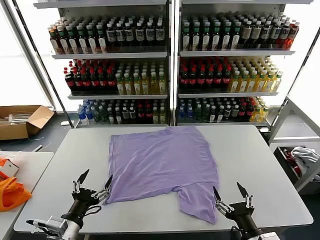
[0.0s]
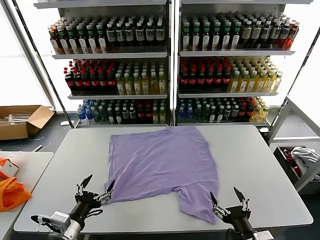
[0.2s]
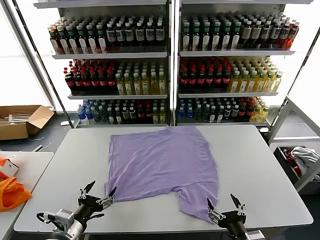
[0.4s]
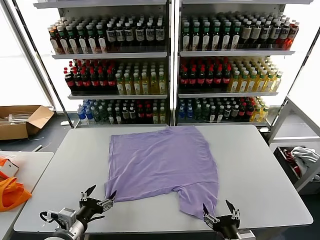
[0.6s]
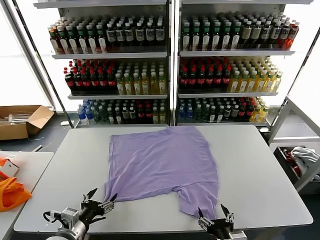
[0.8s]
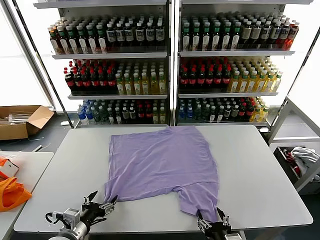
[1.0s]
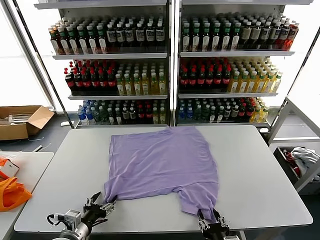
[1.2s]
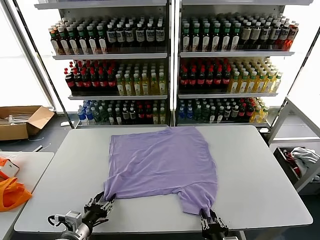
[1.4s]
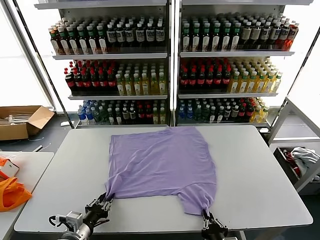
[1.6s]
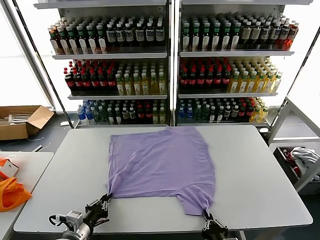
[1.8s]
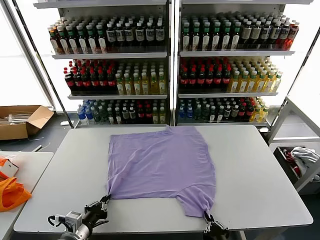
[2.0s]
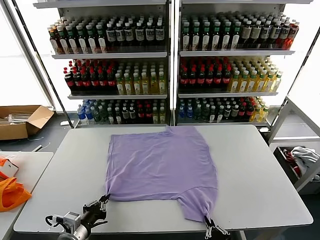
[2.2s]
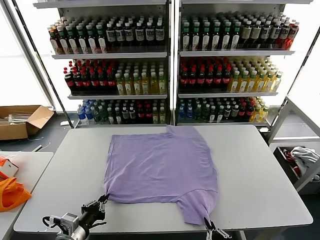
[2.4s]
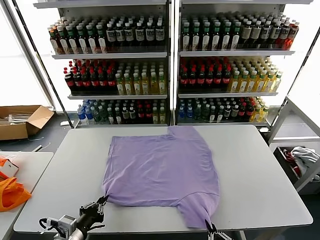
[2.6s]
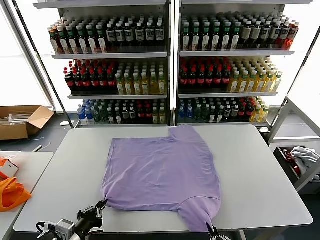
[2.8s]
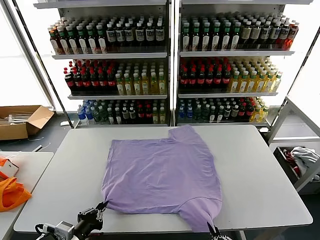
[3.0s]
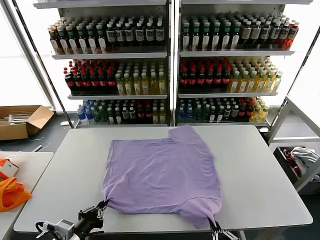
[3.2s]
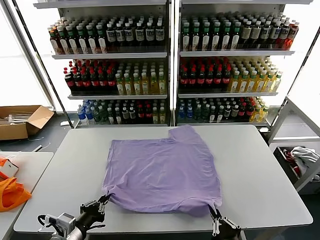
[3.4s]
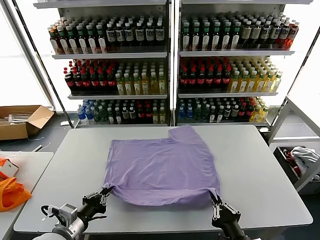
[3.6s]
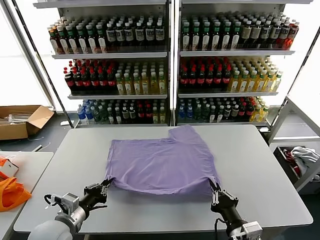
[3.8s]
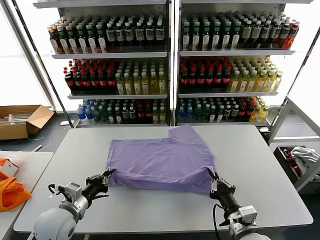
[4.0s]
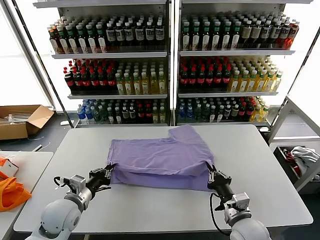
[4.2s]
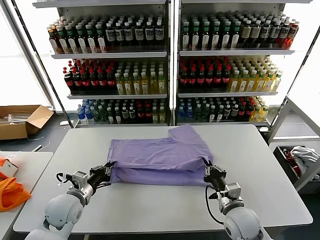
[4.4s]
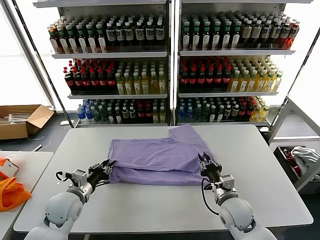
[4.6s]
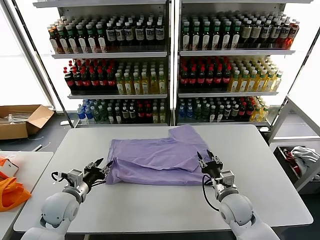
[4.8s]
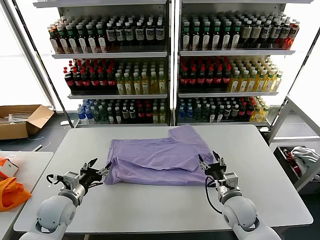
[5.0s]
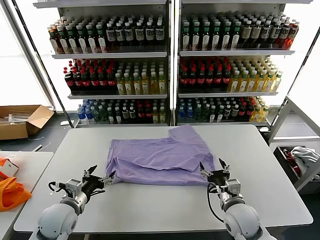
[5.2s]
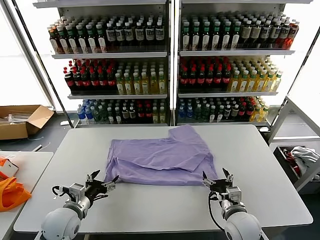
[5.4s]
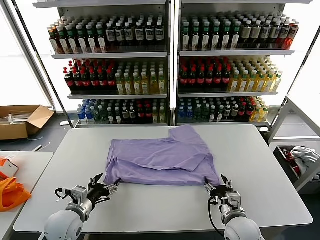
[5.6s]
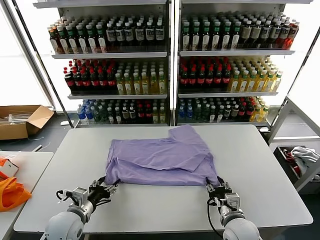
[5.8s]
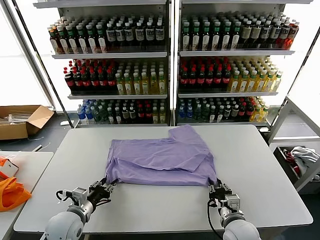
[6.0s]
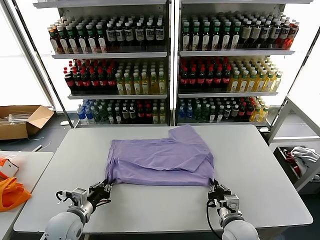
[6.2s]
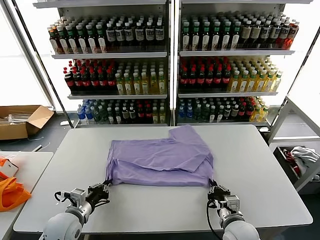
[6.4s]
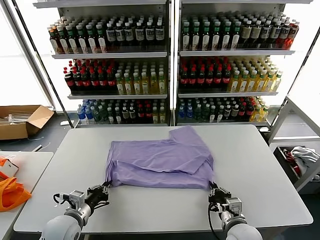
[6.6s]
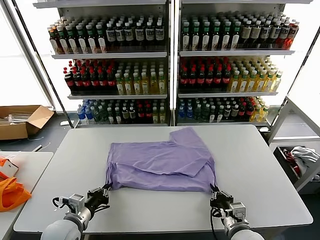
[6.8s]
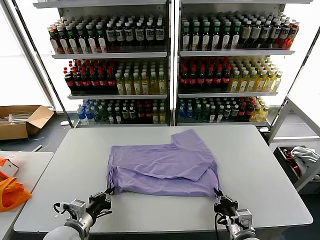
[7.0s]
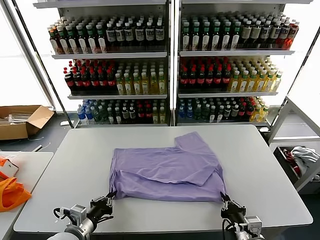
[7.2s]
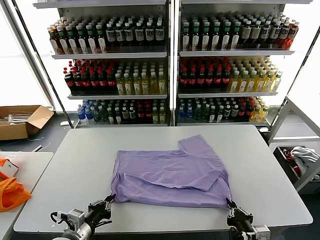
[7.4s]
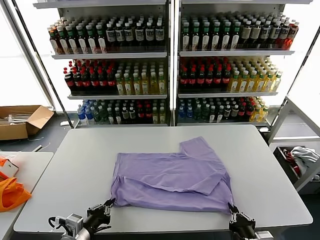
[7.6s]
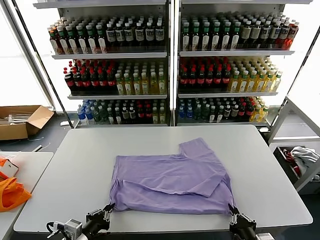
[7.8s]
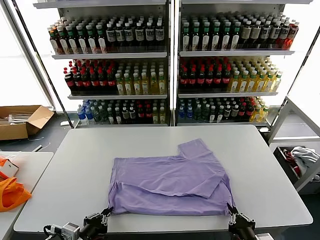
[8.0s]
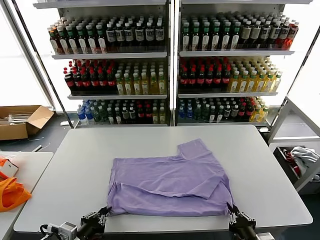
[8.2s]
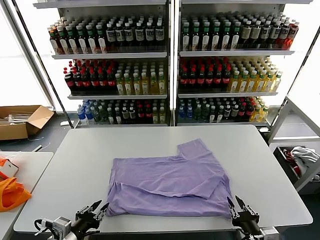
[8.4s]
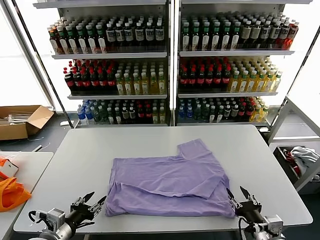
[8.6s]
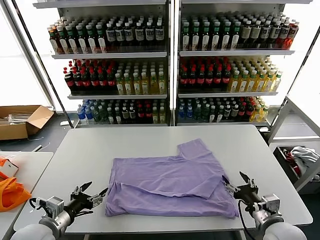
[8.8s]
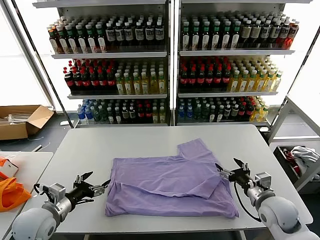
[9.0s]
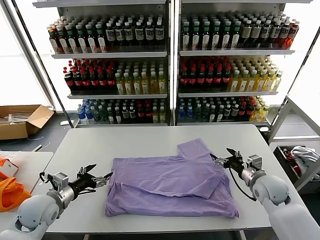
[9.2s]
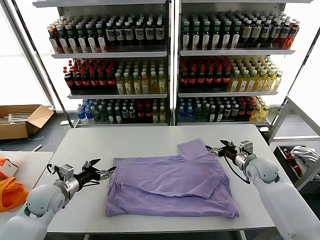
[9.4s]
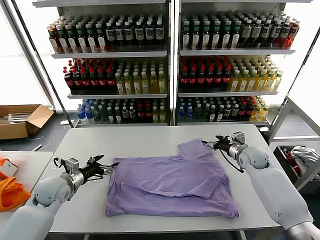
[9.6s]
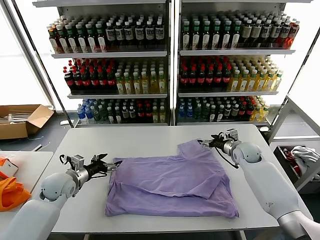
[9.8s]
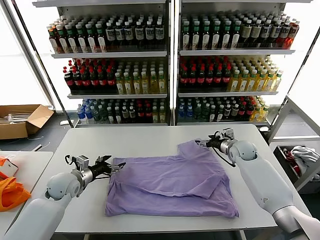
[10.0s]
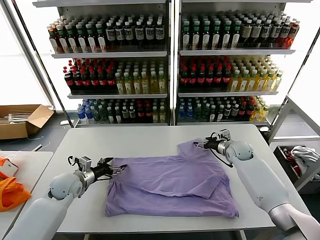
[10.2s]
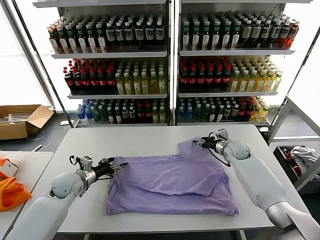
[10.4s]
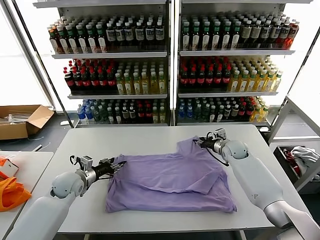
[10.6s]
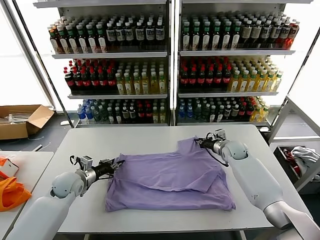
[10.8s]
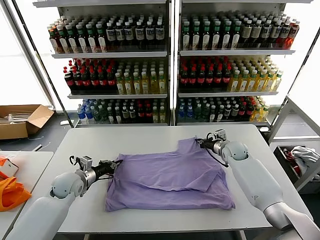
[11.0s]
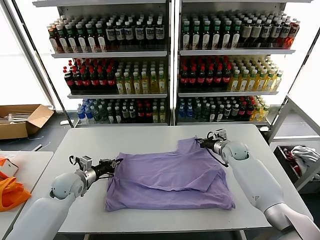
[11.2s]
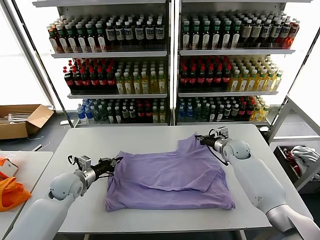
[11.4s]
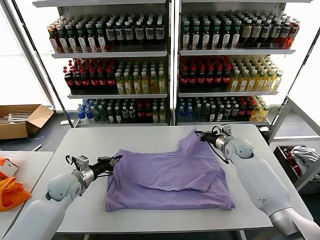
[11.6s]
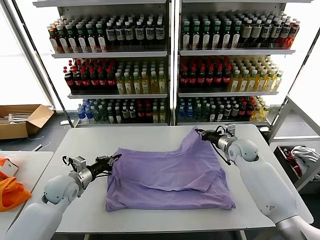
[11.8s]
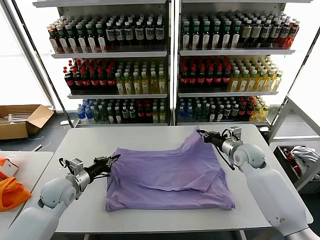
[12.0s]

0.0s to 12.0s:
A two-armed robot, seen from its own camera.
Task of the whole recording: fold and organize the clothes.
Step, 0.0s to 1.8s: use both grippers simultaneously to clamp the lower edge of the clothing fabric.
Step, 2.0s to 4.8s: use both grippers to drag the lower edge of the fabric forward and fold it over the upper edge.
Step, 5.0s to 8.4s: Drag the clothes downward with both gripper.
Step, 8.6s to 10.8s: use both grippers simultaneously to clamp the upper edge of the clothing fabric.
1.6s to 3.0s: The right gripper is displaced backward and upward by roughly 10 cm. Meanwhile the left gripper shifts approximately 5 cm upward, and closes.
3.0s to 4.4s: The left gripper goes some 15 cm forward. The right gripper is displaced forward by approximately 25 cm.
4.4s to 6.0s: The left gripper changes place by approximately 5 cm, and opens its fingers. The right gripper shifts about 5 cm backward, and opens, then closes once more.
6.0s to 7.6s: The grippers both shift backward by some 10 cm. The left gripper closes its fingers.
7.6s to 9.0s: The right gripper shifts roughly 20 cm forward, and opens its fingers; the left gripper goes roughly 10 cm to the left and forward, and opens.
9.0s to 10.4s: The grippers both shift forward by roughly 20 cm. The right gripper closes its fingers.
10.4s to 12.0s: The right gripper moves backward and upward, about 10 cm, and closes its fingers. The left gripper ends up about 5 cm from where it was, and closes up.

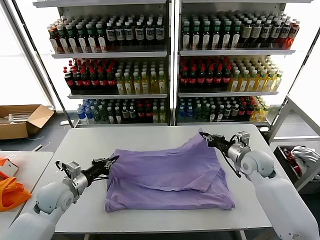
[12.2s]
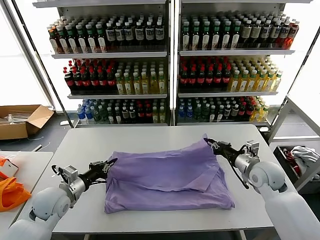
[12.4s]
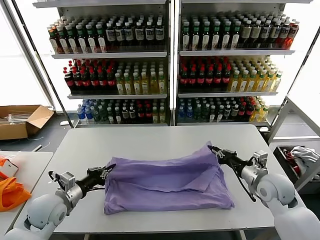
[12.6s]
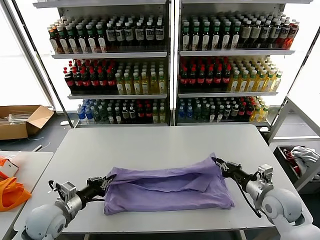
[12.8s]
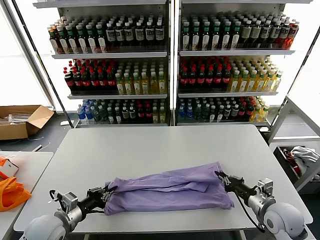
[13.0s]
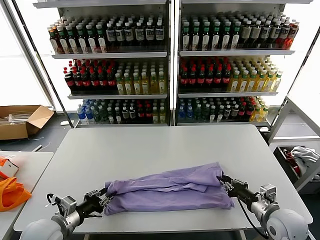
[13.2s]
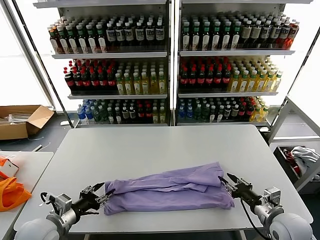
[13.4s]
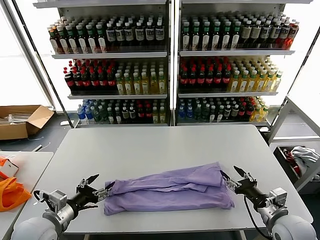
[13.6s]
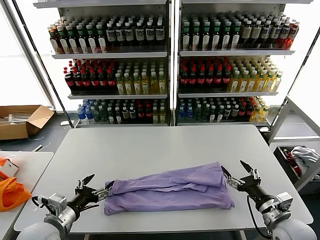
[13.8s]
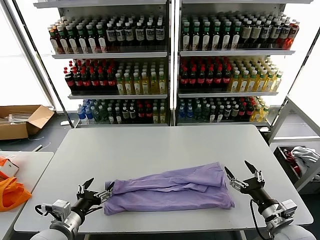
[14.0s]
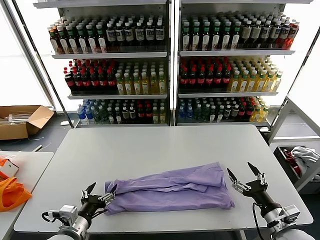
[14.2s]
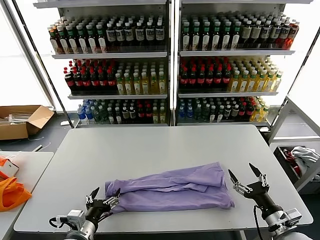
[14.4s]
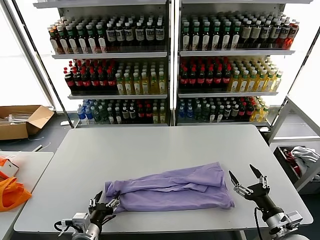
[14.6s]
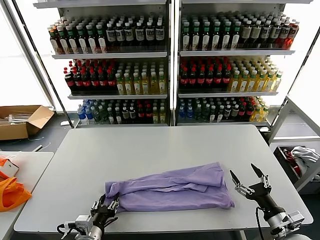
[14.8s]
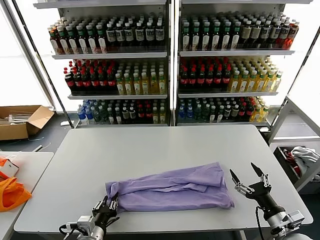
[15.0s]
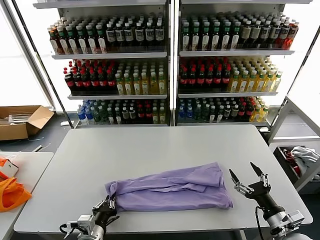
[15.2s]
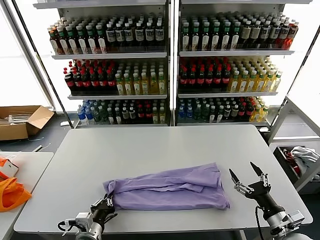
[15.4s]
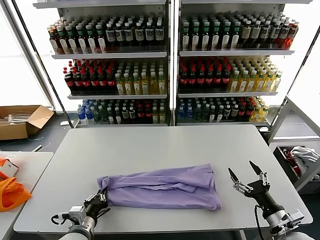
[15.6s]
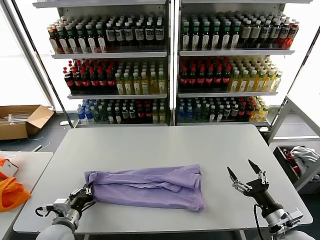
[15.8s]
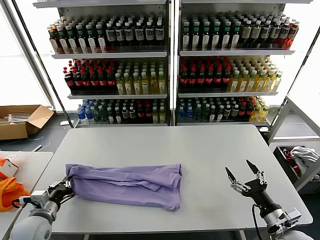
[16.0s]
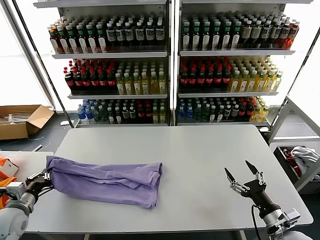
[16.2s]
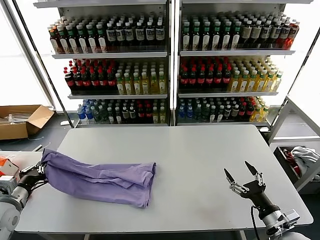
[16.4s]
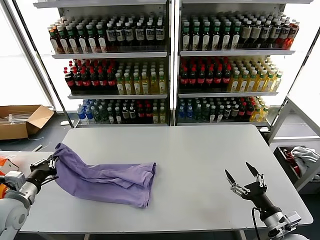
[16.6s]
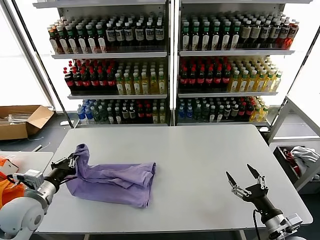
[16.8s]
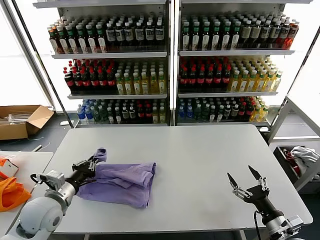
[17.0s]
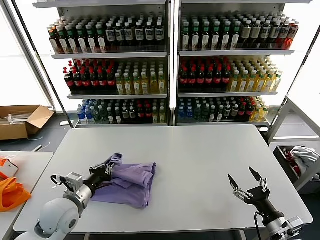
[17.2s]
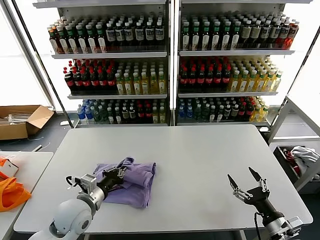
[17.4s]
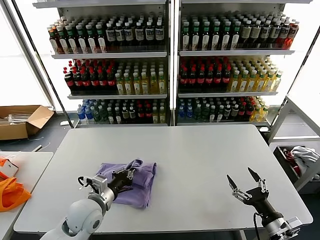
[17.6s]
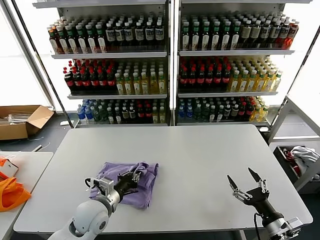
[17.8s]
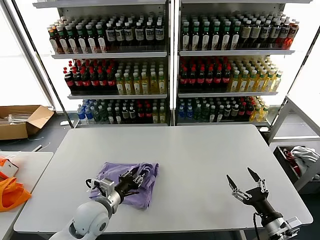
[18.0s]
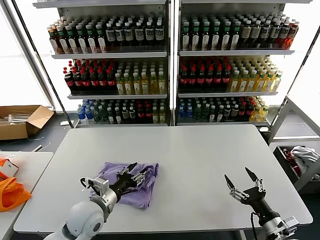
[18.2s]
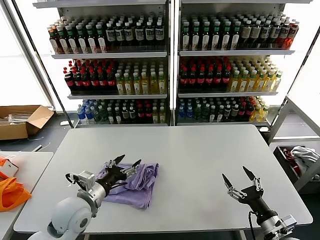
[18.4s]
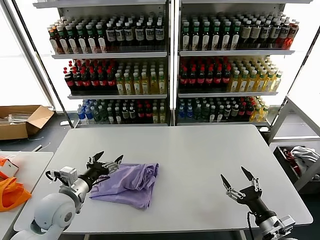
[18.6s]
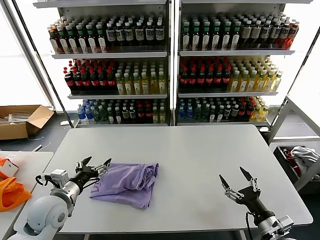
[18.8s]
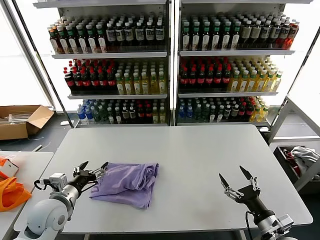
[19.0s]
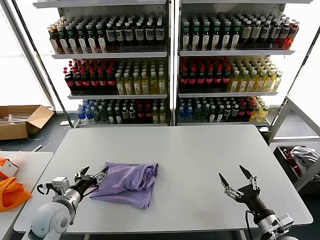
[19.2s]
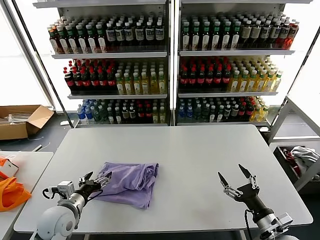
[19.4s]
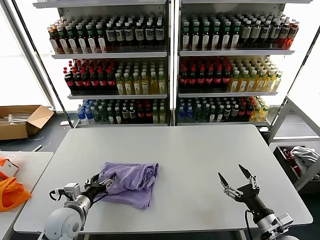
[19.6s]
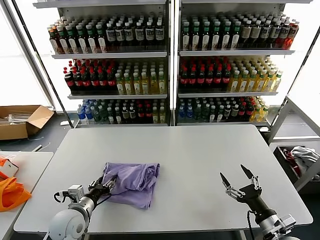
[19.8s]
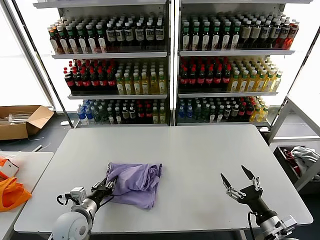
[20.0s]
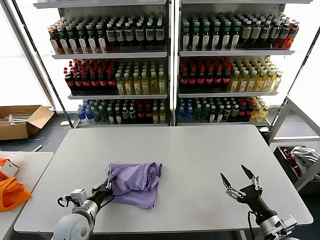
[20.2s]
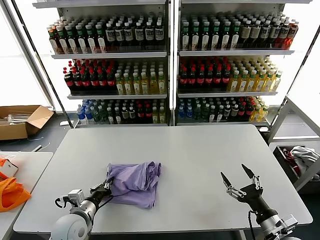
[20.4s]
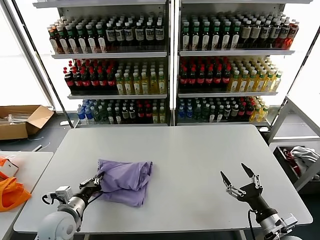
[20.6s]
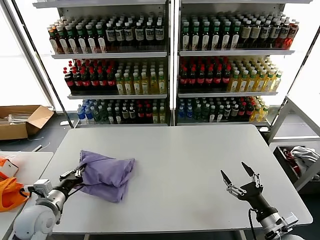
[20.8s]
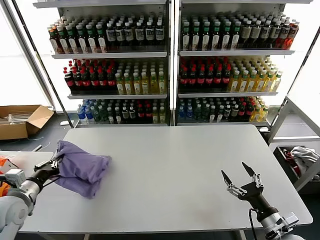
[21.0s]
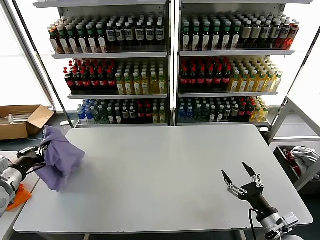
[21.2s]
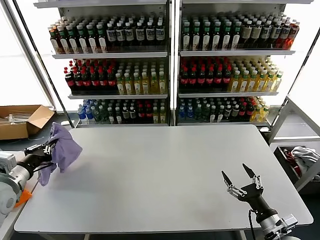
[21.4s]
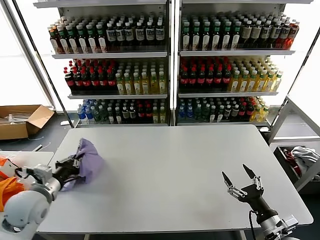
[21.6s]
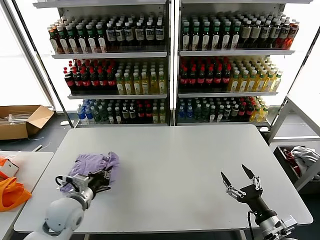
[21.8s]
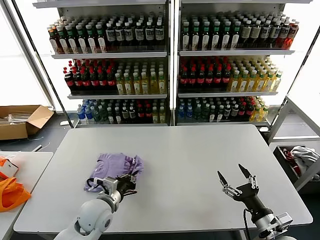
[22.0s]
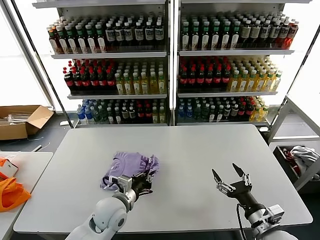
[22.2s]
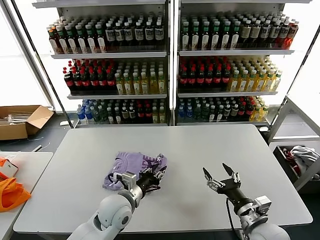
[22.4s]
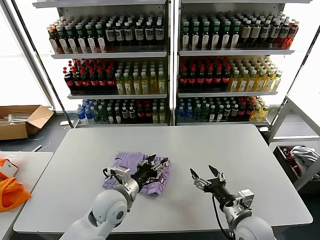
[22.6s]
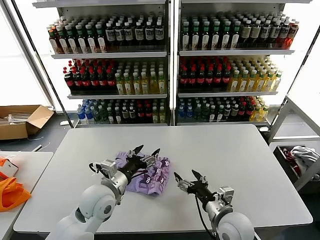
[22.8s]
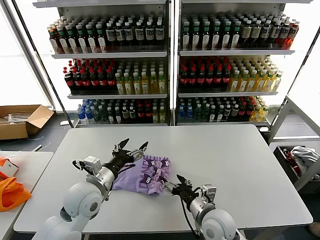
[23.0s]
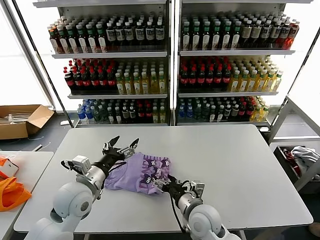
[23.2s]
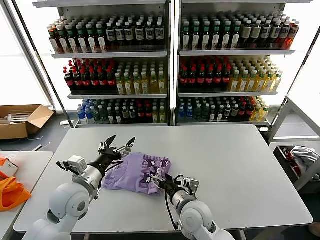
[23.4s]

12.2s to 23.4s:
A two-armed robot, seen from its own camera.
Task of the whole recording: fold and organize the clothes.
Step, 12.2s to 13.4s: use both grippers to drag the upper edge of the fabric backward and fold it over the lower edge.
Step, 13.6s to 15.2s: use the left gripper to clamp the left edge of the fabric.
Step, 15.4s to 18.2s: use the left gripper to drag the left edge of the fabric to the left and folds it over the right edge.
Step, 18.4s to 22.4s: Flip the folded clothes over with left gripper.
12.2s to 13.8s: The grippers both shift backward by about 15 cm. The left gripper opens its fingers. Meanwhile the right gripper opens up.
13.8s to 15.4s: The left gripper is displaced downward and to the right by approximately 10 cm, and closes.
15.4s to 17.0s: The left gripper heads to the left, upward and forward, covering about 15 cm.
17.0s to 18.6s: The left gripper heads to the right, covering some 5 cm, and opens.
18.6s to 20.2s: The left gripper goes approximately 10 cm downward, and closes.
20.2s to 21.8s: The left gripper travels upward by about 5 cm, and reaches approximately 20 cm to the left, then returns.
21.8s to 23.4s: The left gripper moves to the right and upward, some 10 cm, and opens. Meanwhile the right gripper moves to the left and forward, roughly 25 cm.
